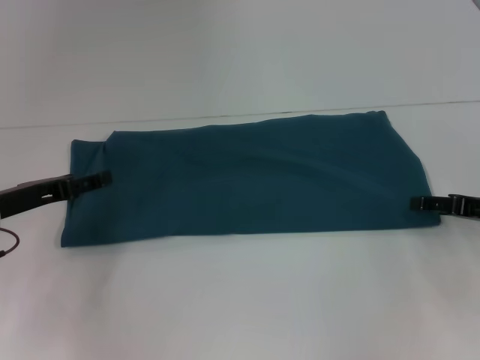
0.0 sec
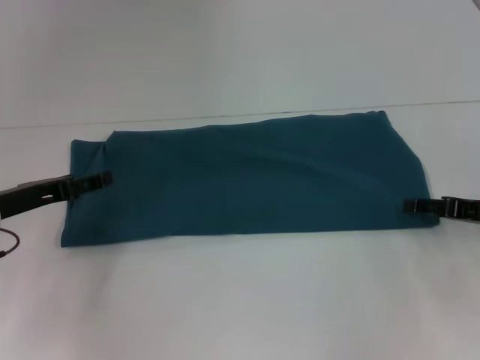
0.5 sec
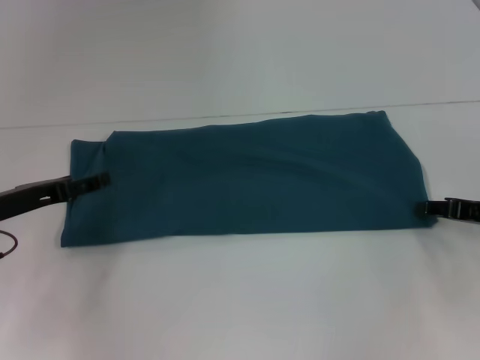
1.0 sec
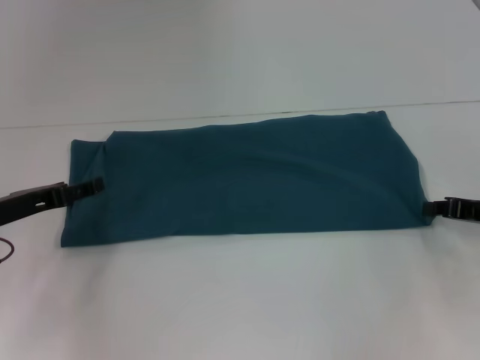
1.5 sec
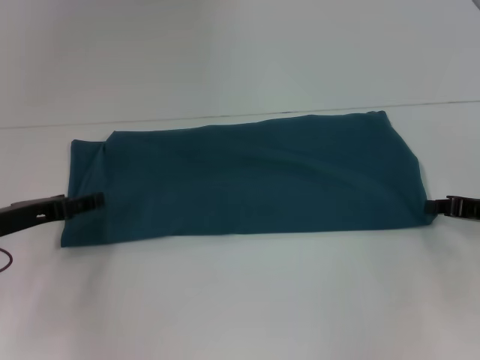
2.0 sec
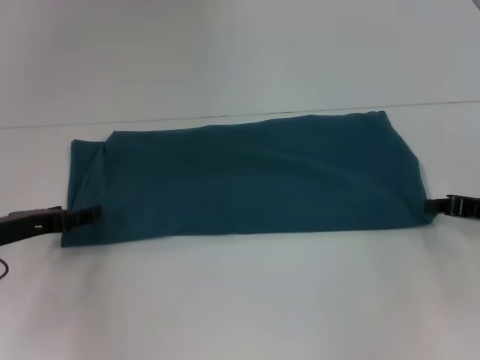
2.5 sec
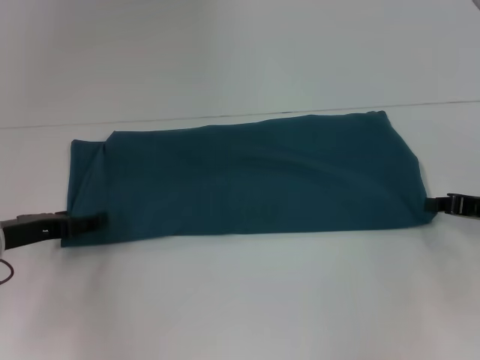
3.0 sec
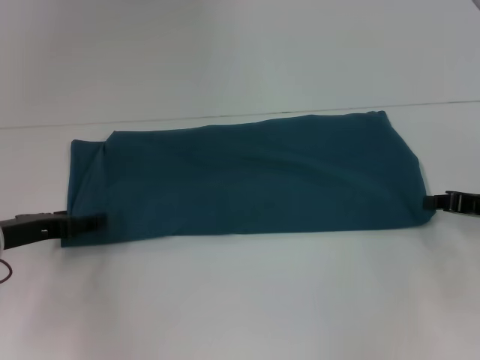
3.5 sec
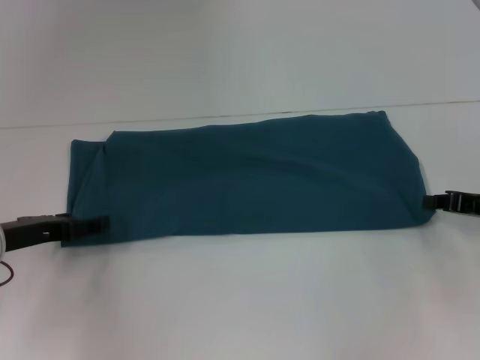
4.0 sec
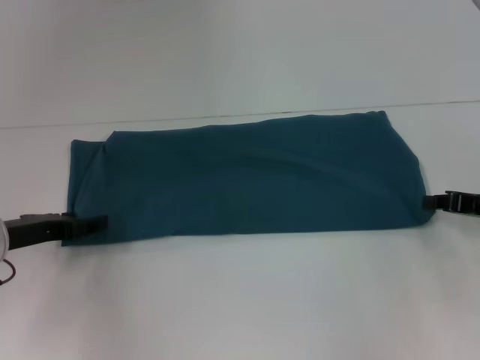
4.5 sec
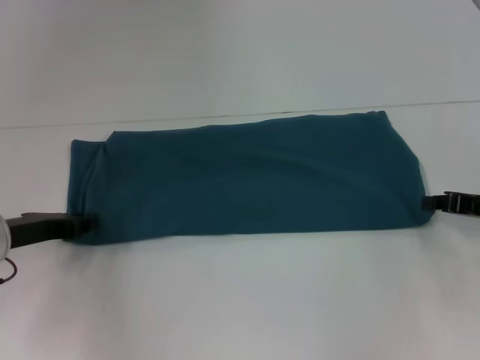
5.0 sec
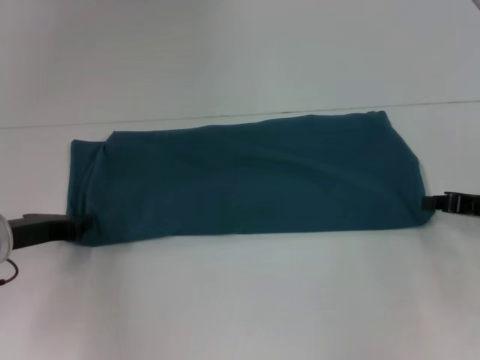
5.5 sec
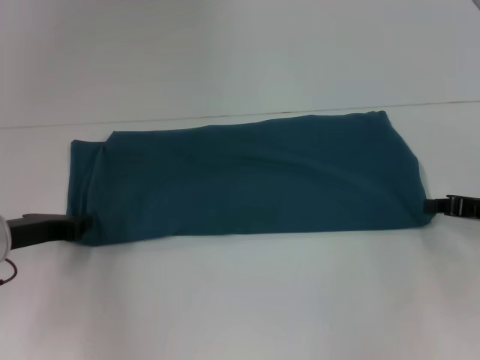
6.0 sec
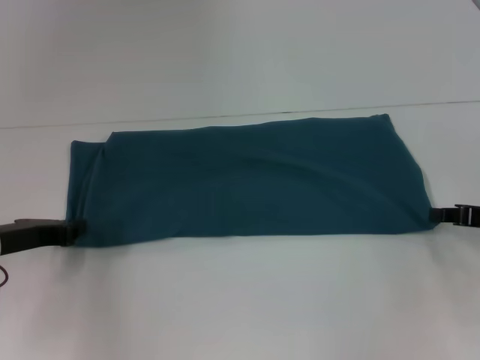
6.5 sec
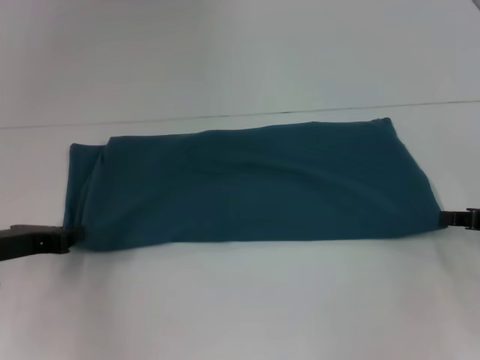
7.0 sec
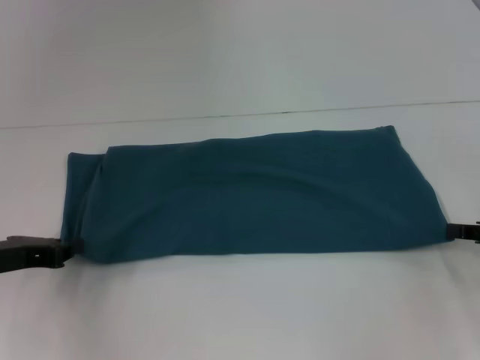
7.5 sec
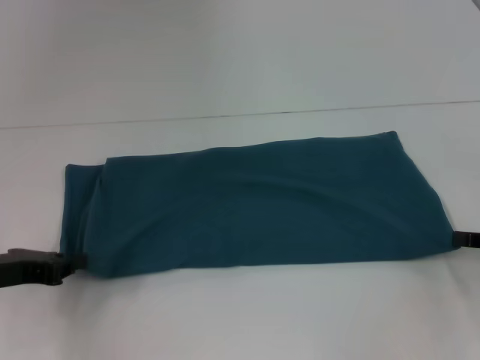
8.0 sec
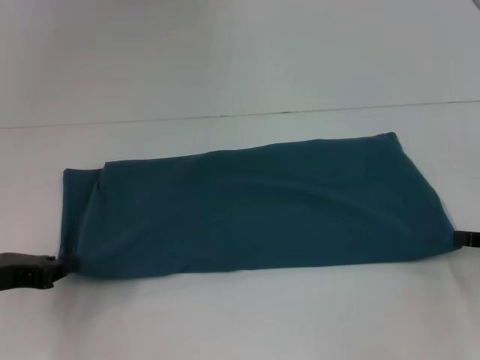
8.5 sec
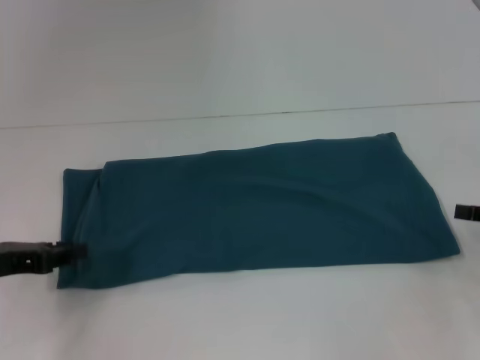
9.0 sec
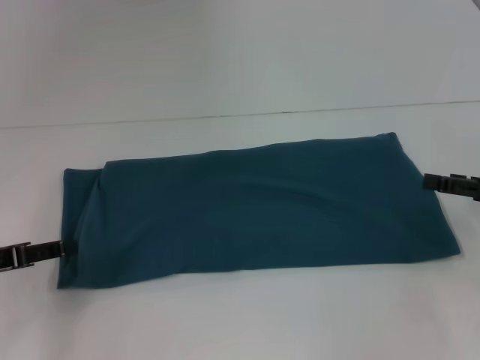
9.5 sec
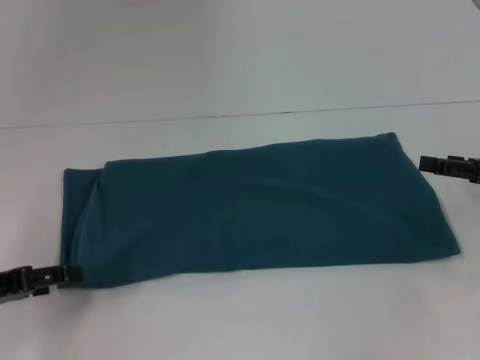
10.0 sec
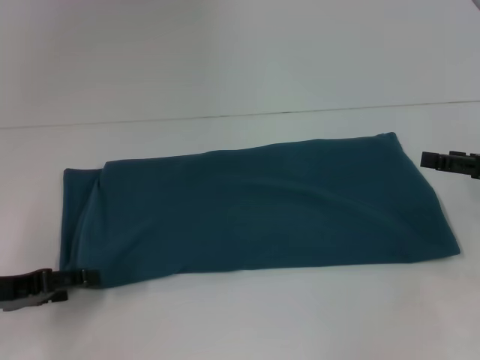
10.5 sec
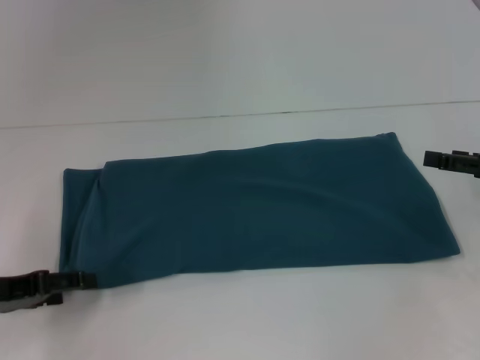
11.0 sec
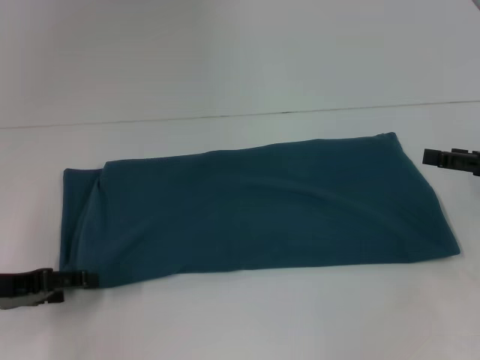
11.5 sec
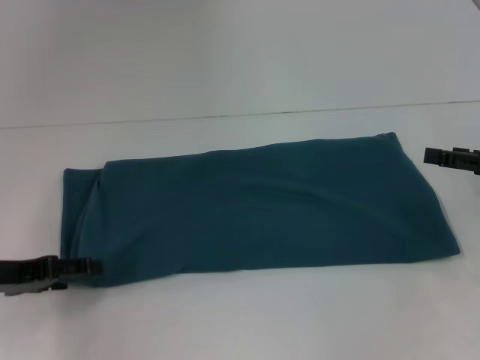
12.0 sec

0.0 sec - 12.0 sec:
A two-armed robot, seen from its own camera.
2.0 sec - 4.0 sec: The grippers move only a little.
6.0 sec - 8.0 sec: The right gripper shifts by roughly 5 cm. The left gripper moves roughly 5 cm.
8.0 sec - 10.0 sec: The right gripper shifts by approximately 5 cm, and opens, while the left gripper opens.
10.0 sec - 12.0 sec: There are only small adjustments of the grippers.

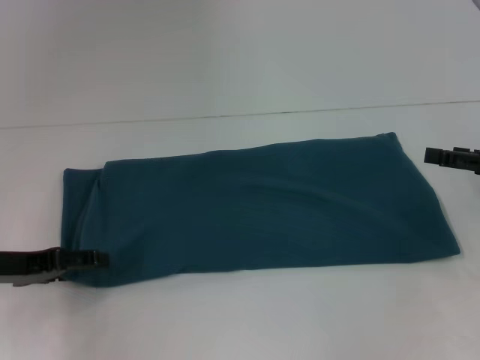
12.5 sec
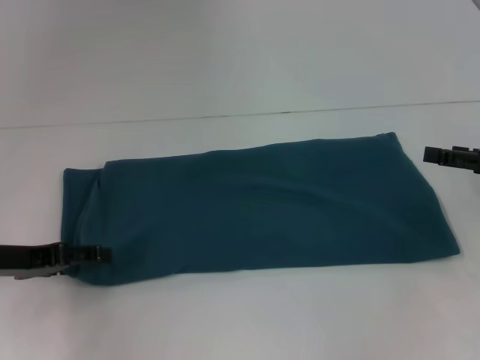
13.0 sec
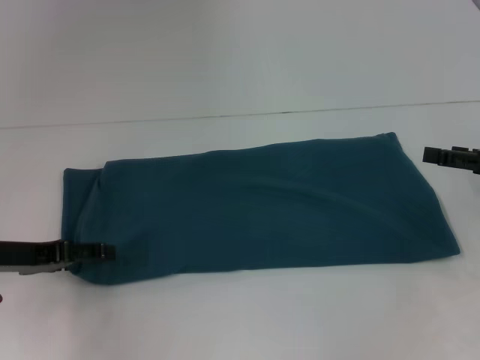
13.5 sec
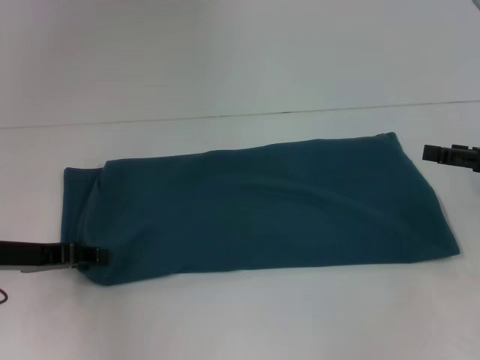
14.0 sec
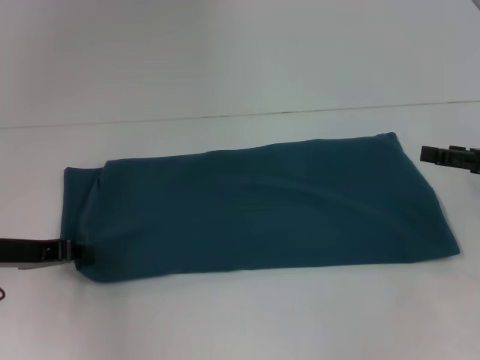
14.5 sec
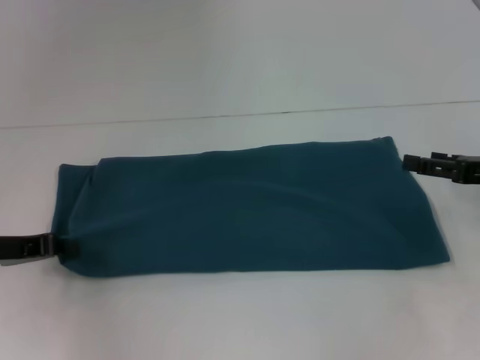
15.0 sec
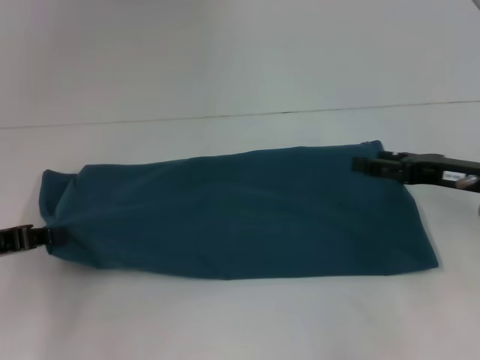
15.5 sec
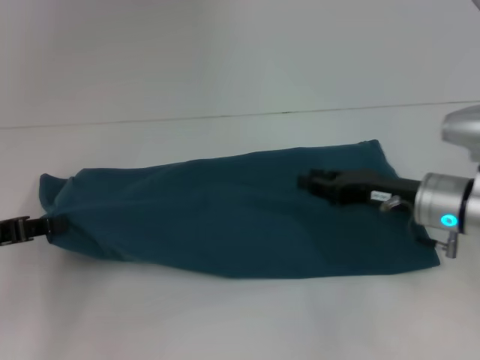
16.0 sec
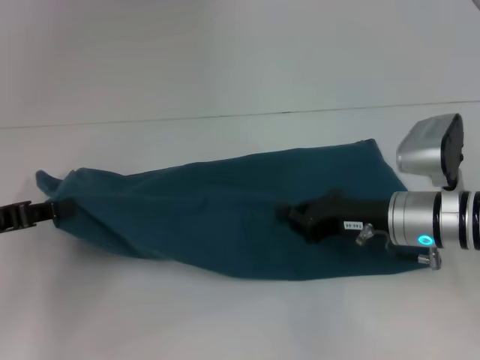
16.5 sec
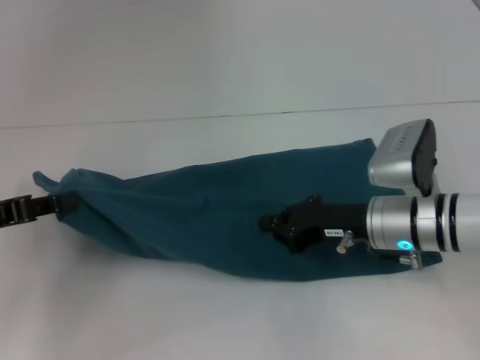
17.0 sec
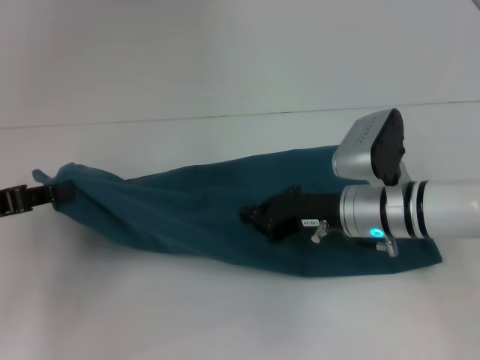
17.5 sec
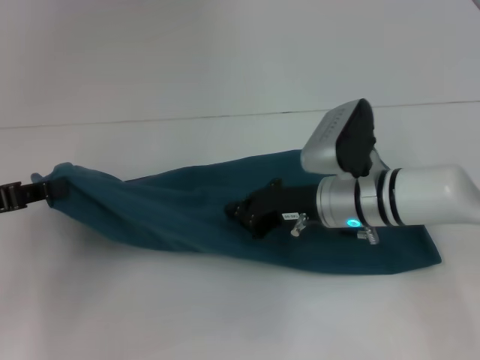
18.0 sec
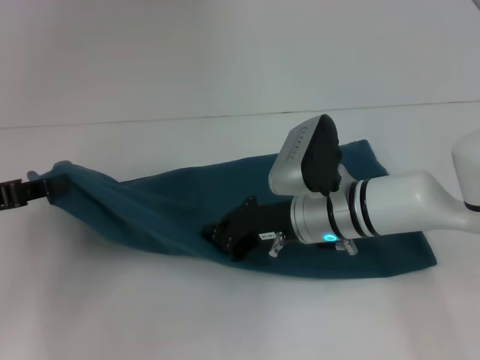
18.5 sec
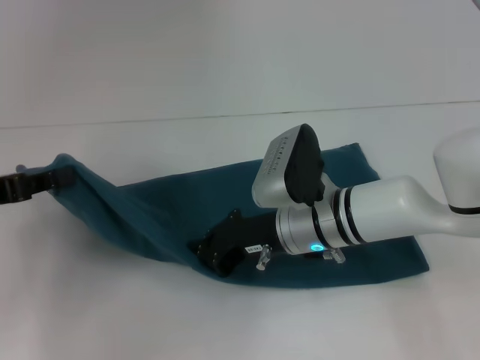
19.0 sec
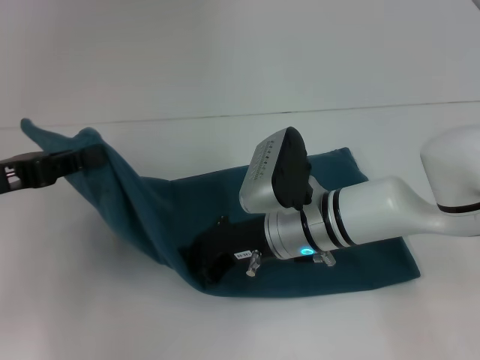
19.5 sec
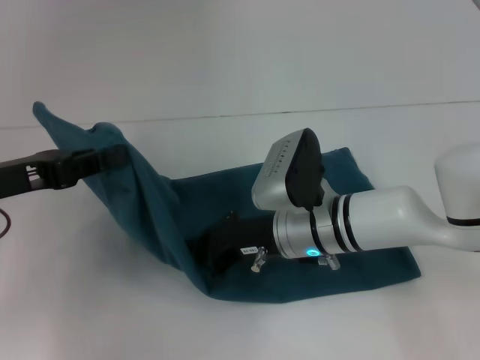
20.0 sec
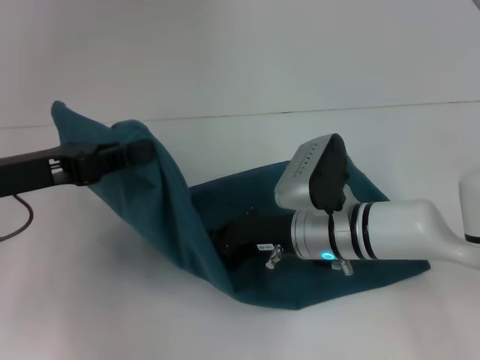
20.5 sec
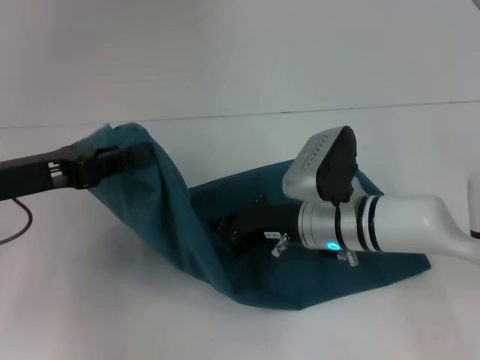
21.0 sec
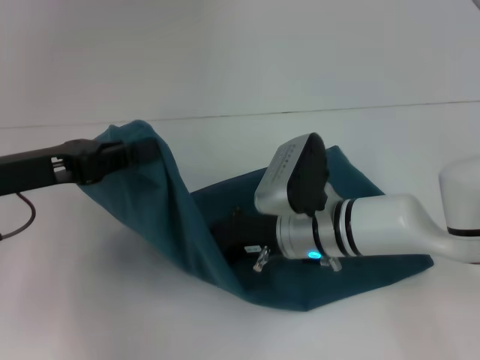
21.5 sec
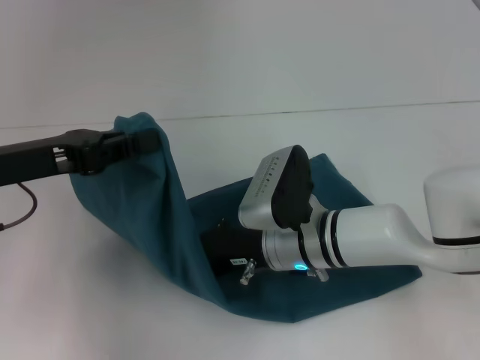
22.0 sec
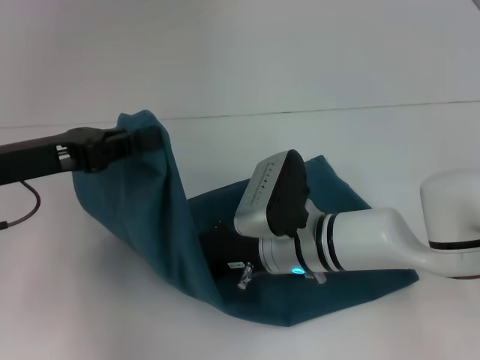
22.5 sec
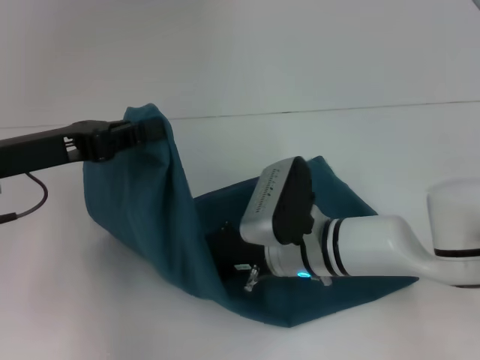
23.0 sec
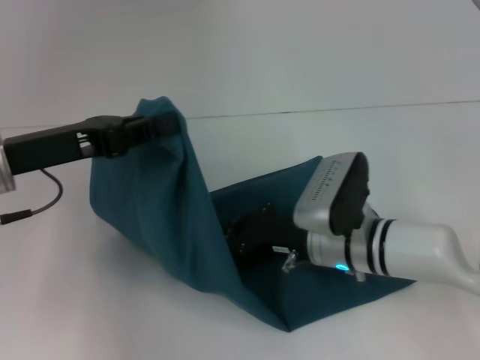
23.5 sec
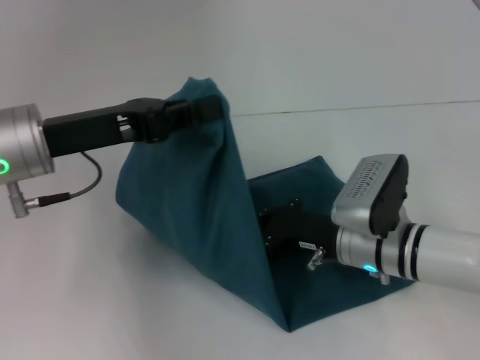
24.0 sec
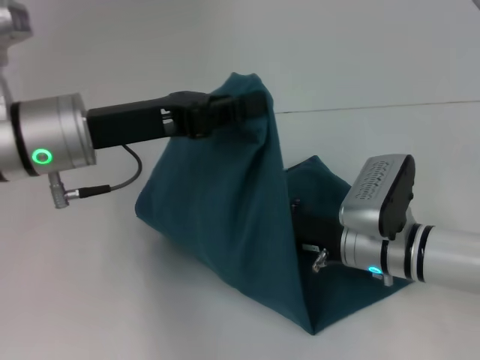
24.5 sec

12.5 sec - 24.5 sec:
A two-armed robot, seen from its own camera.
Step, 12.5 sec - 23.5 sec: Press the middle of the clothes with your right hand.
12.5 sec - 14.5 sec: The left gripper closes its fingers.
14.5 sec - 16.5 sec: The right gripper moves to the left, about 15 cm, and closes up; the left gripper ends up about 5 cm from where it was.
16.5 sec - 18.5 sec: The right gripper is displaced to the left by approximately 10 cm.
18.5 sec - 20.5 sec: The left gripper shifts roughly 5 cm to the right.
20.5 sec - 22.5 sec: The grippers make only small movements.
22.5 sec - 24.5 sec: The two grippers go about 10 cm to the right.

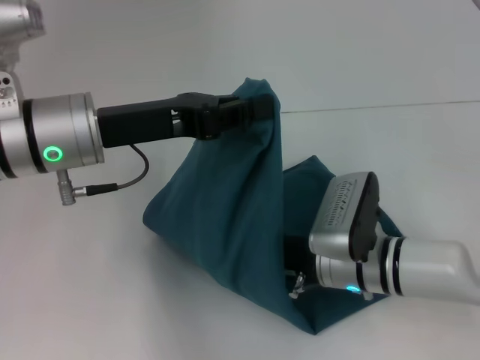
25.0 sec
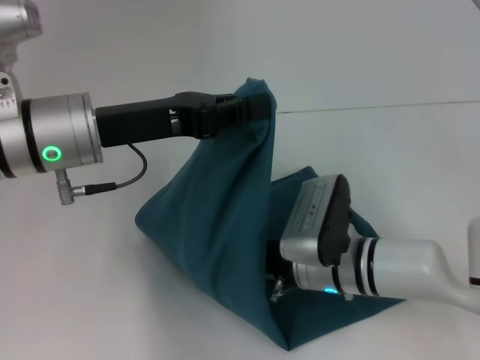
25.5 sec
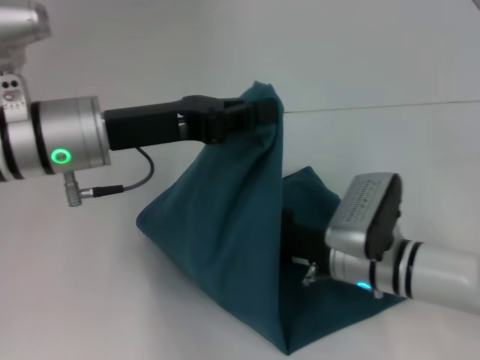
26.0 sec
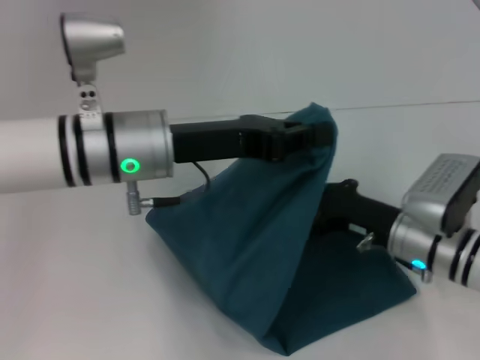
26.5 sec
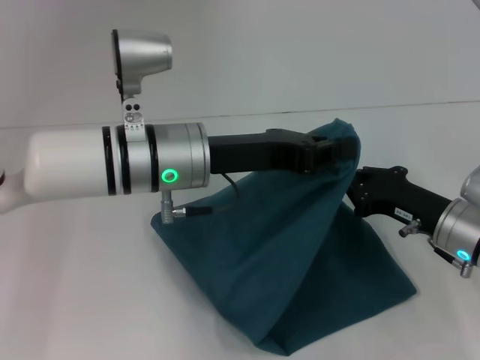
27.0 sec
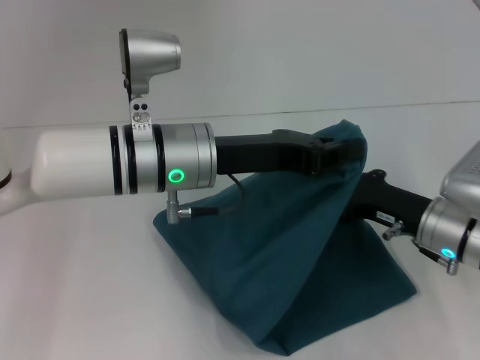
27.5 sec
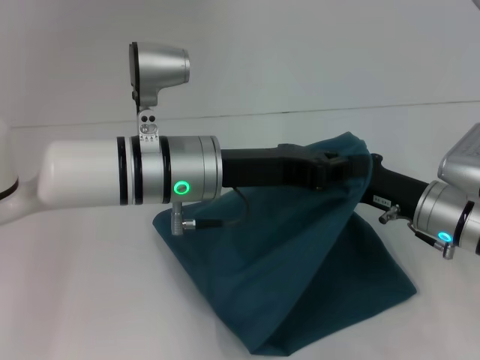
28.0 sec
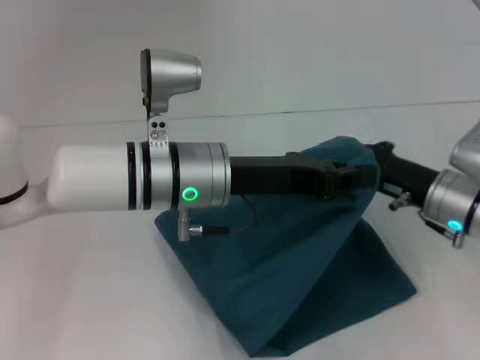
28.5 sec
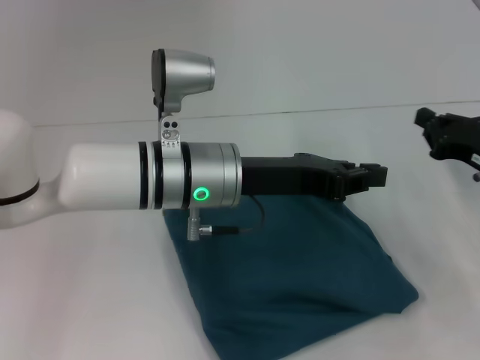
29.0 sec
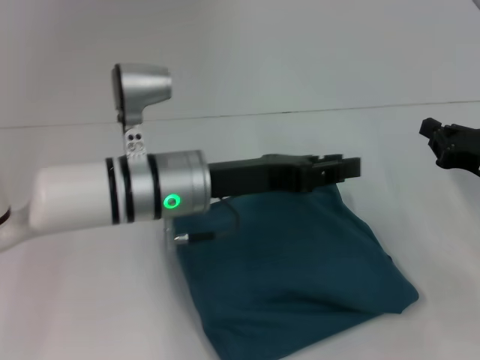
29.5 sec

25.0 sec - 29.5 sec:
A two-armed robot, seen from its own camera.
25.0 sec - 27.0 sec: The grippers both shift to the right by about 10 cm.
27.0 sec - 29.5 sec: The right gripper heads to the right, covering some 5 cm.
